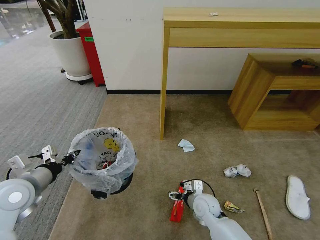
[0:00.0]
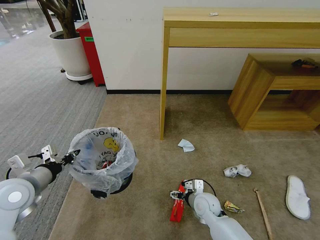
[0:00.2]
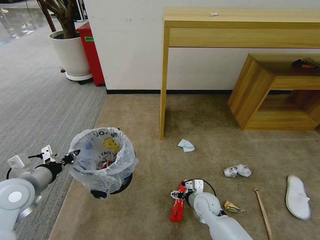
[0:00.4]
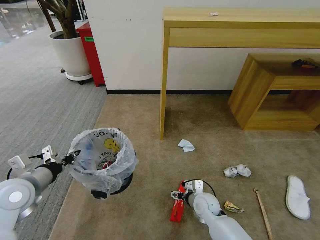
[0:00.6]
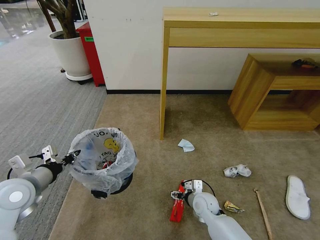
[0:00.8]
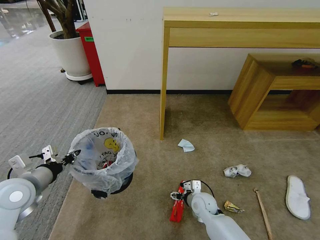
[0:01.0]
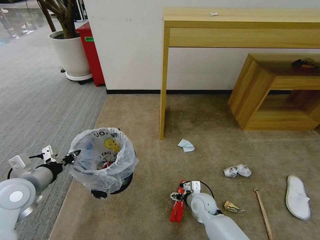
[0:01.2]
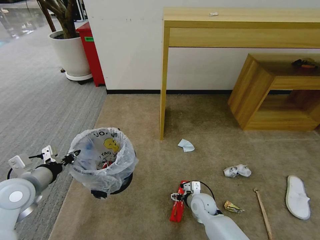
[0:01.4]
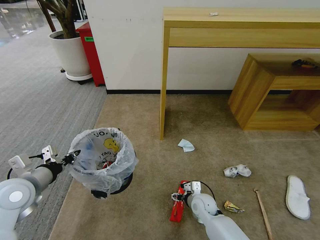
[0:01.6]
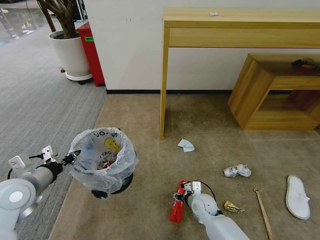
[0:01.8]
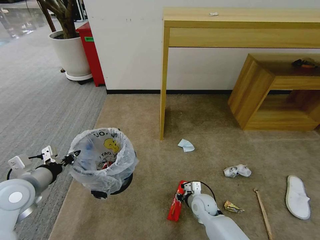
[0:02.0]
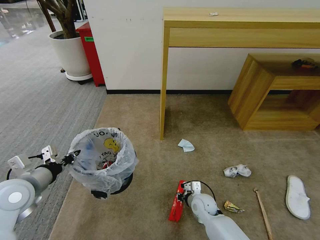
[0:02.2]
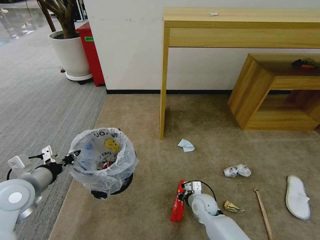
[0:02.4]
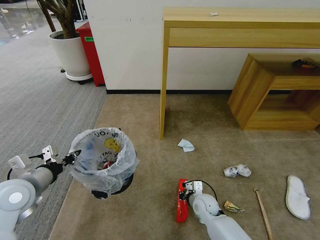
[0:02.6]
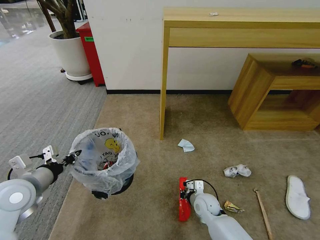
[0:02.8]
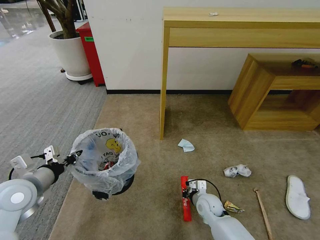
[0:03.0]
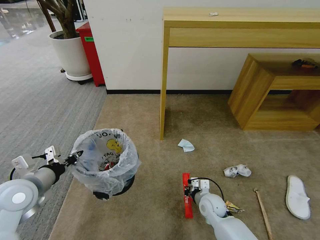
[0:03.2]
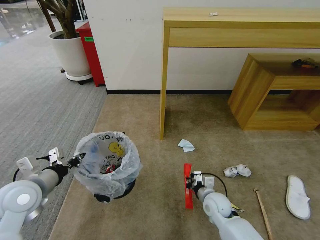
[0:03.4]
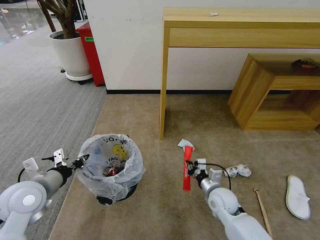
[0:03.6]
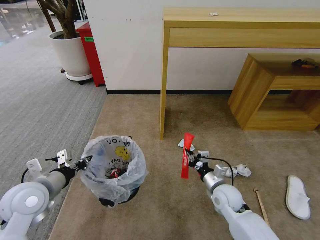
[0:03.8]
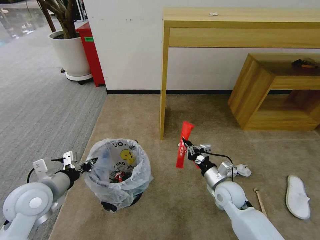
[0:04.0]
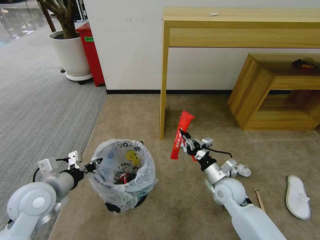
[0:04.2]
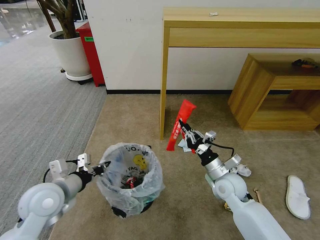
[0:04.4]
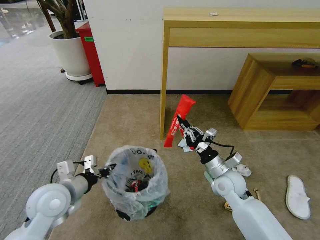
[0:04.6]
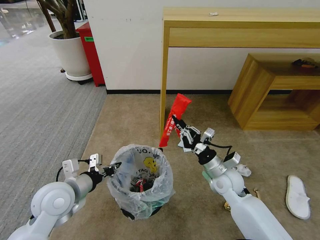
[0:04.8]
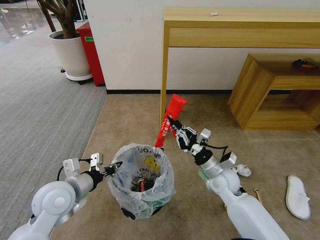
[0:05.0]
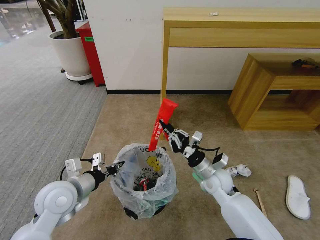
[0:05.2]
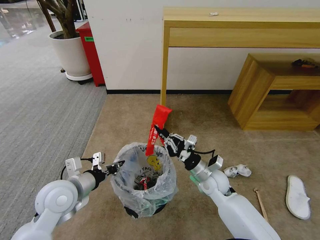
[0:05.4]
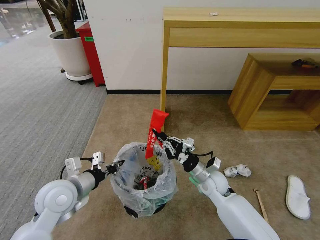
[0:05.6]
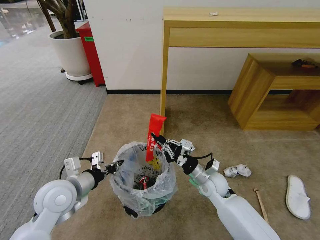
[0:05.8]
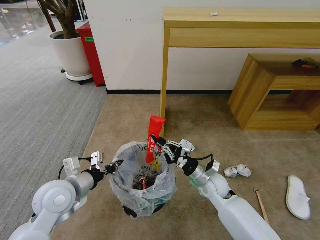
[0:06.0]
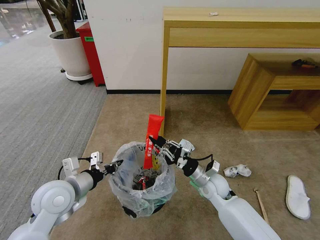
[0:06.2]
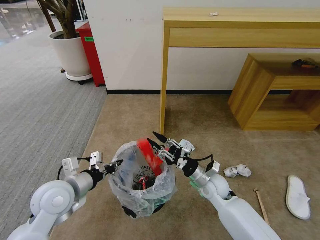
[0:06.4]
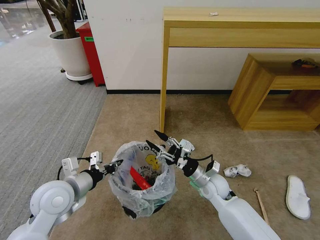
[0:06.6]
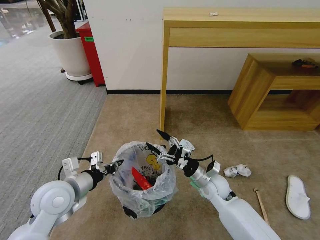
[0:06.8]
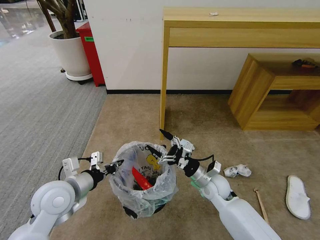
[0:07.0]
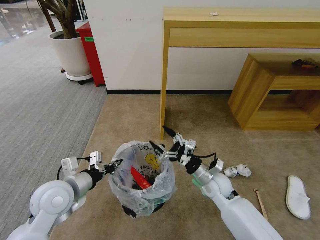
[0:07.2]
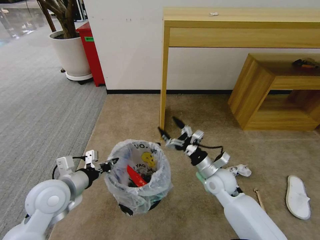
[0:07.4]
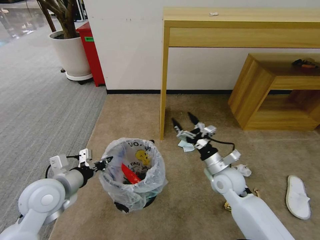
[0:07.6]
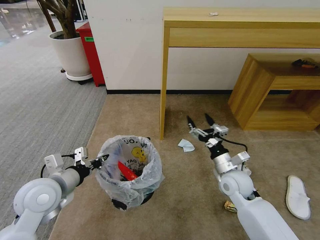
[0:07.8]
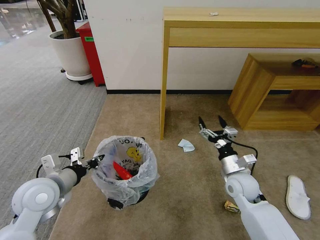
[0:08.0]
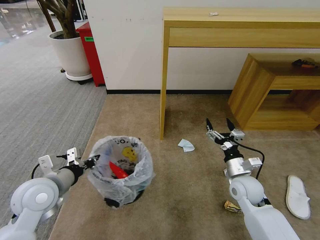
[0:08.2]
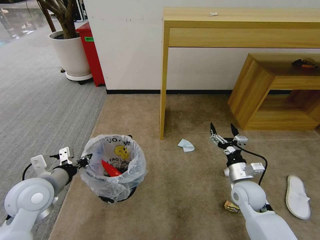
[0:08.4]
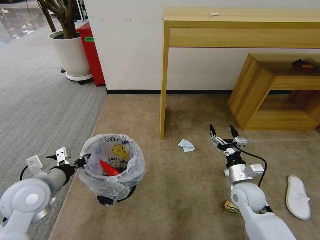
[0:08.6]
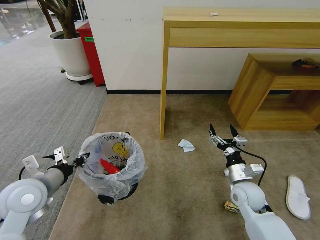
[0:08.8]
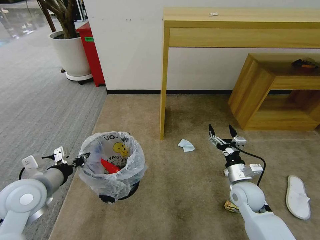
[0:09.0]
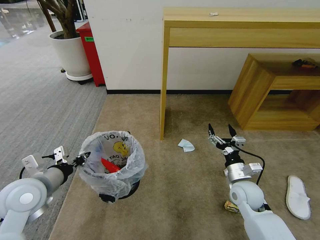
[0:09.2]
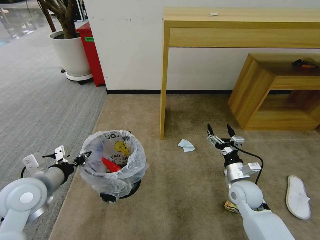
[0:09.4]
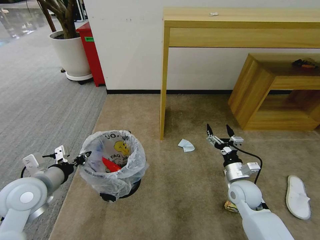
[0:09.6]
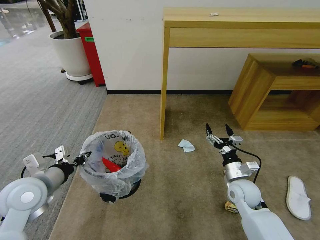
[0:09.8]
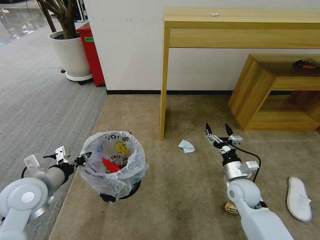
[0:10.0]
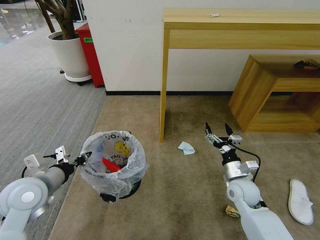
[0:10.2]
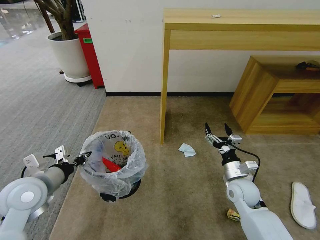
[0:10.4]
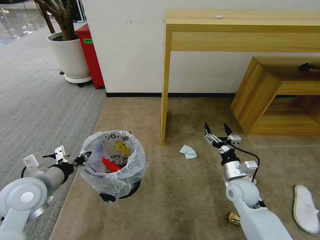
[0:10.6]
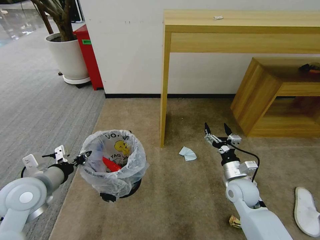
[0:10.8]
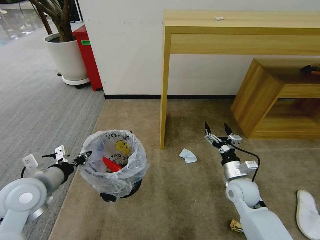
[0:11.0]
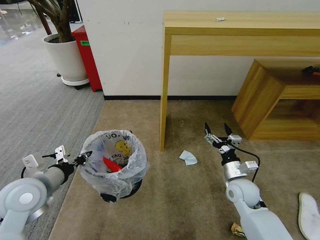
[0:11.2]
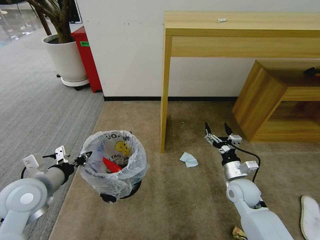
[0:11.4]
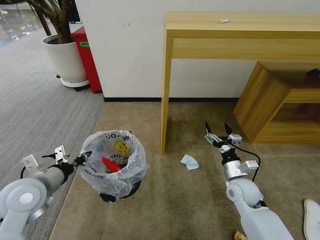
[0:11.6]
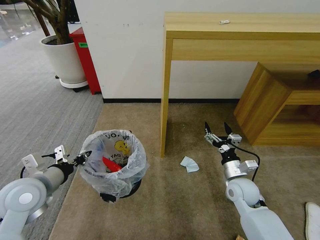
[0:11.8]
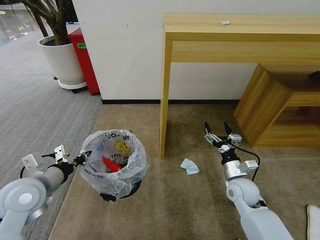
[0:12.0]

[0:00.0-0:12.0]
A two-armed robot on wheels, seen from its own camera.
Task of the whole recording: Pick up the trash bin and place the garbage on the floor into it.
0:00.0 to 0:01.6: The right gripper moves downward, approximately 5 cm.
0:01.6 to 0:03.0: The right gripper closes its fingers.
0:03.0 to 0:04.4: The right gripper goes some 15 cm upward. Meanwhile the left gripper goes about 5 cm to the right.
0:04.4 to 0:06.0: The right gripper changes place by some 5 cm.
0:06.0 to 0:07.6: The right gripper ends up about 5 cm from where it was, and opens up.
0:07.6 to 0:09.0: The right gripper is displaced to the right by approximately 5 cm.
0:09.0 to 0:10.4: The grippers make only small movements.

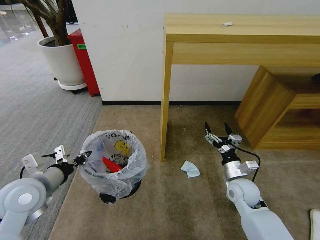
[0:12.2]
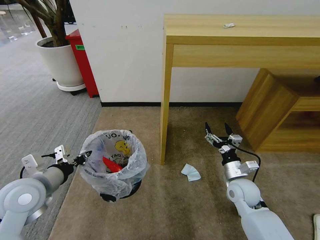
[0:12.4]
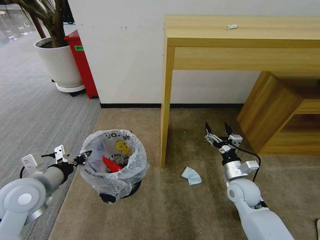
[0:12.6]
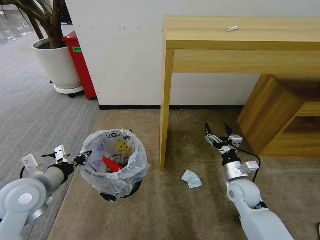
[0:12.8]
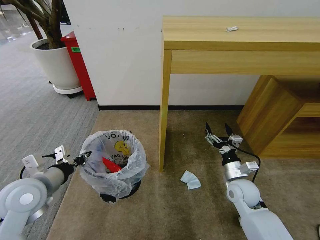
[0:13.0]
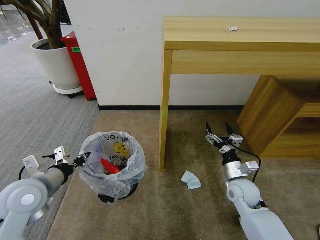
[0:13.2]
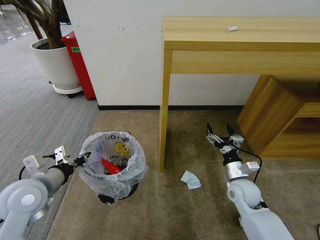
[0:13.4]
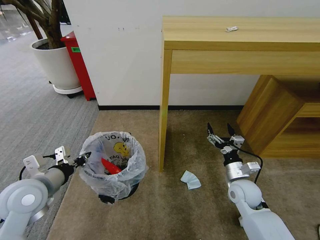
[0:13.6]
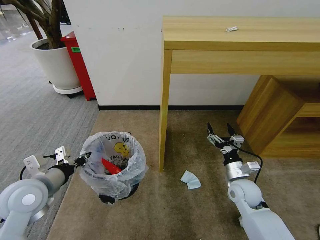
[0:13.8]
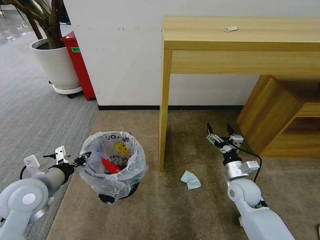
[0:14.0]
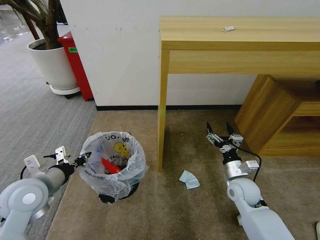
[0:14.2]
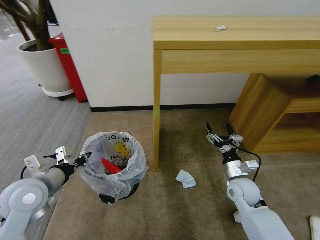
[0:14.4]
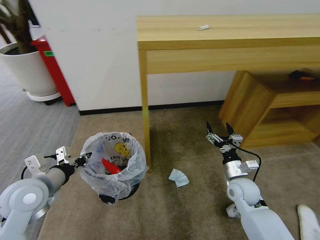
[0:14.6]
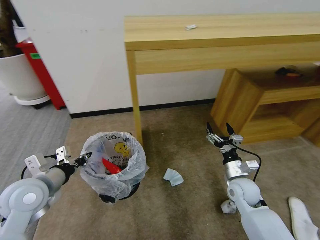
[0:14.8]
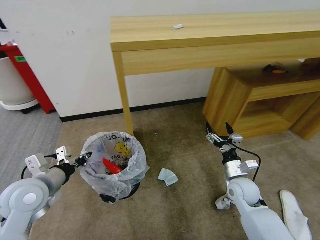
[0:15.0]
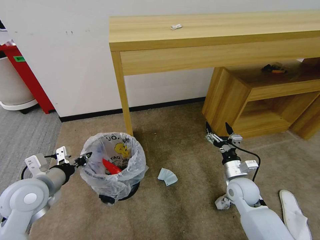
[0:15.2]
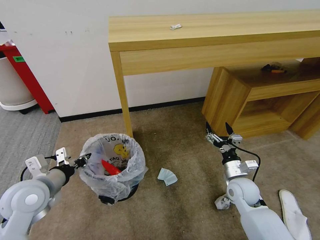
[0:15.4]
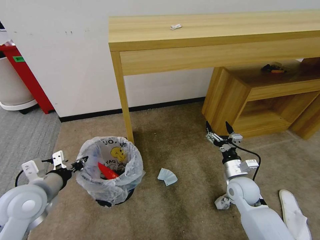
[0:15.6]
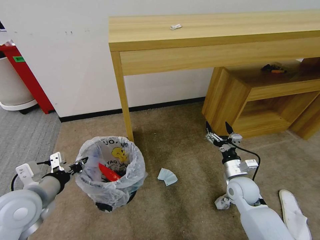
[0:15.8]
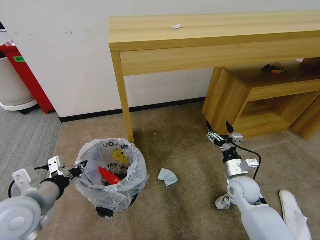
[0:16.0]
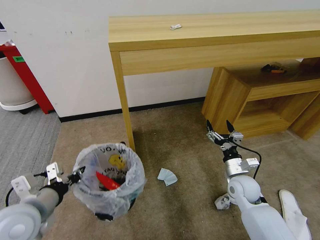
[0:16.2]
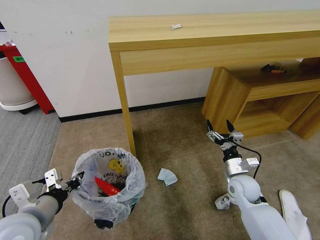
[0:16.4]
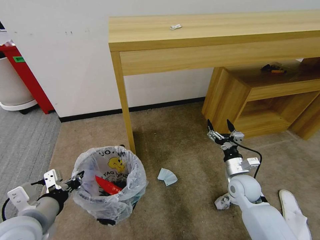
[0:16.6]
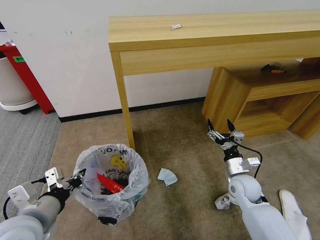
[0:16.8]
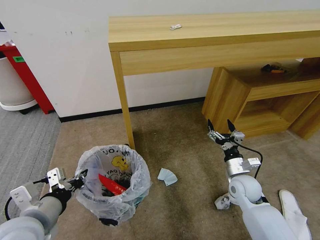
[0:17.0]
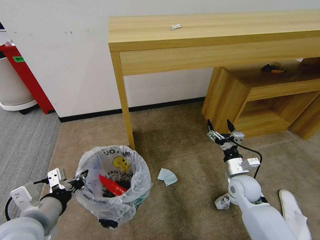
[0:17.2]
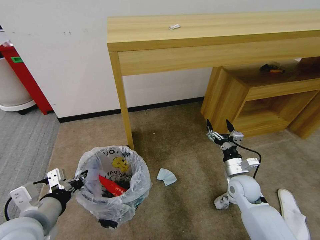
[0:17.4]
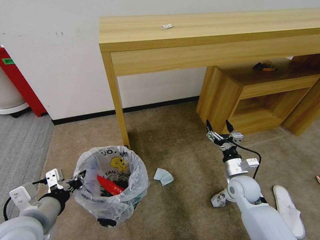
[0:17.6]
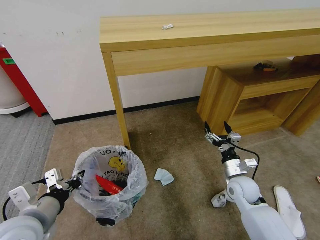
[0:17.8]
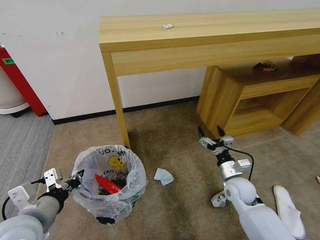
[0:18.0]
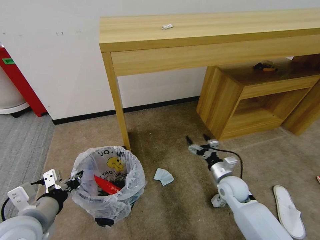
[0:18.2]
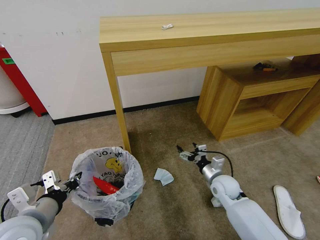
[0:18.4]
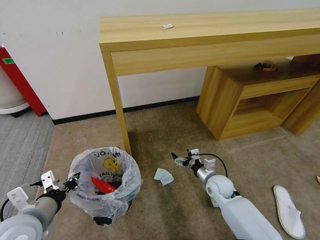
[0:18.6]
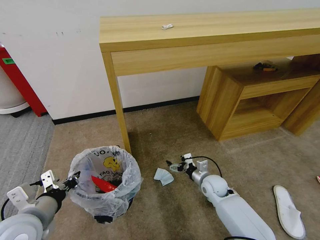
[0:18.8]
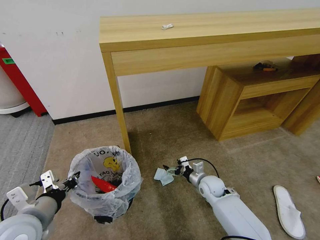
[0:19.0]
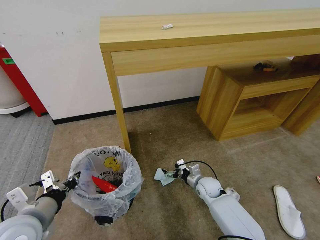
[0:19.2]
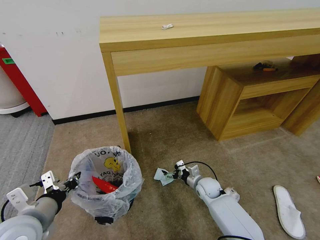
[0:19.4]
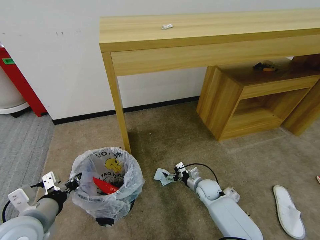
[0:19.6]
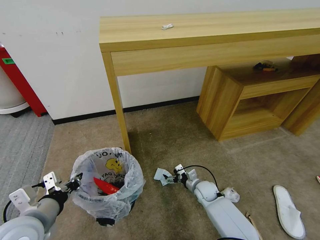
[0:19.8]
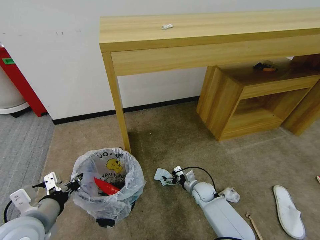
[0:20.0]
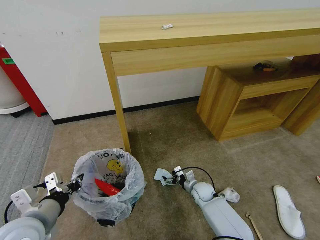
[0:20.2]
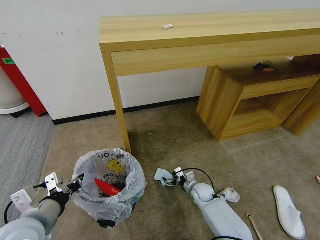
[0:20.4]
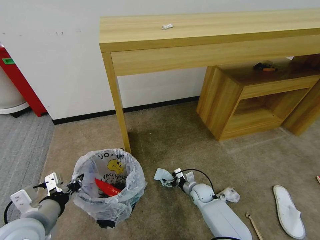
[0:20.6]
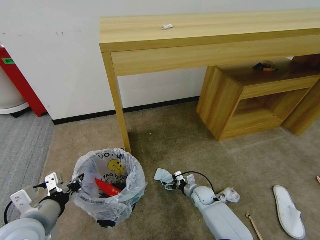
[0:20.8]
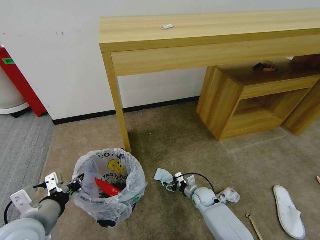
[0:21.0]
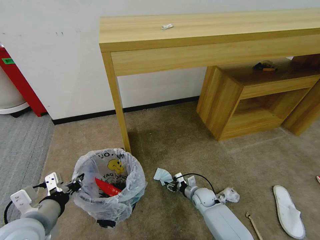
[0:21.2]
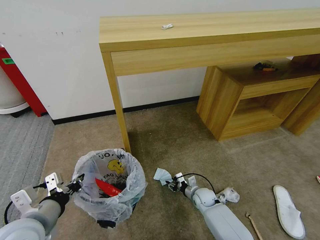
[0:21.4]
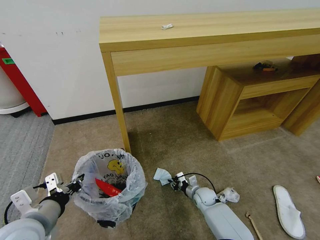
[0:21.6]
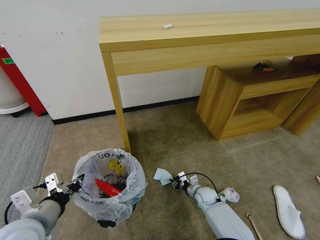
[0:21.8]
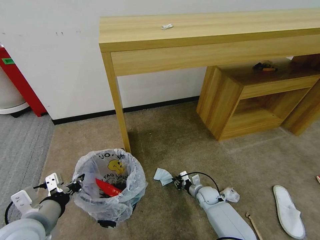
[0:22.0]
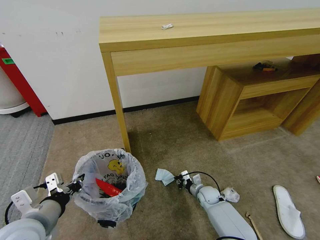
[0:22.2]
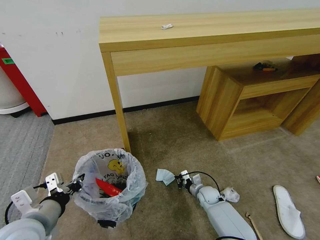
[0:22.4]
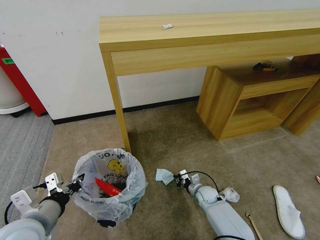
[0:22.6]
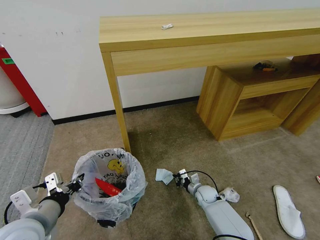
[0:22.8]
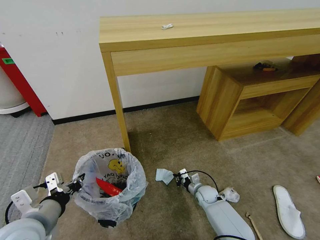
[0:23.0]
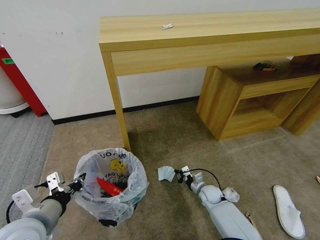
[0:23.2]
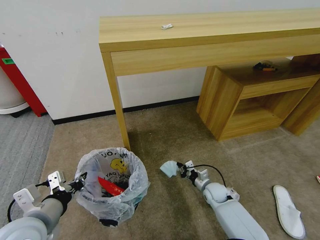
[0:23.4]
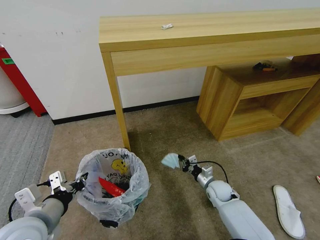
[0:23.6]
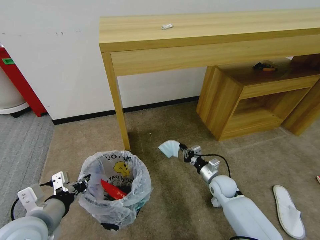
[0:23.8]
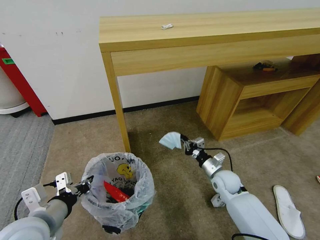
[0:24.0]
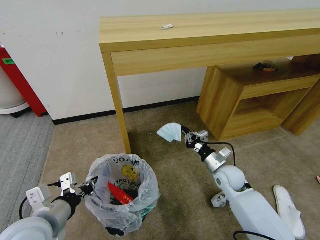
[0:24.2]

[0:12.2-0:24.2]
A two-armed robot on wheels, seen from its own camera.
Task of the whole recording: Pick up the trash bin and place the garbage on the floor into it.
0:12.2 to 0:13.8: Both grippers stay put.
0:15.2 to 0:16.6: The left gripper heads backward, covering approximately 10 cm.
0:16.6 to 0:18.2: The grippers stay close to where they were, moving slightly.
0:18.2 to 0:19.8: The right gripper travels downward and to the left by about 15 cm.
0:19.8 to 0:21.2: The right gripper closes its fingers.
0:21.2 to 0:22.6: The right gripper closes up.
0:22.6 to 0:24.2: The right gripper travels upward by roughly 20 cm.
